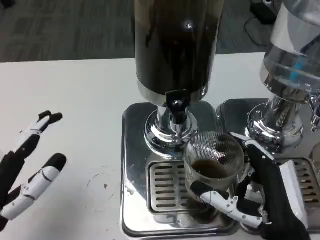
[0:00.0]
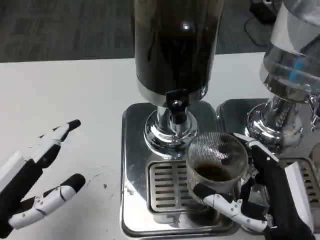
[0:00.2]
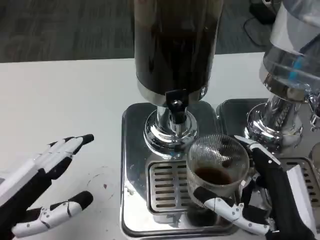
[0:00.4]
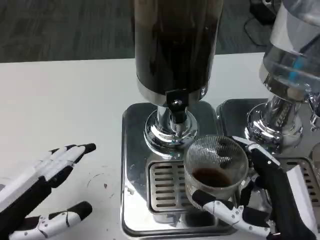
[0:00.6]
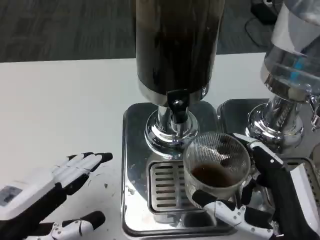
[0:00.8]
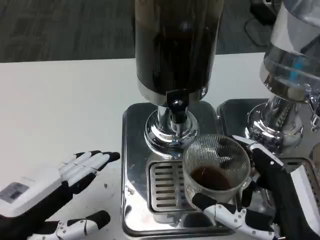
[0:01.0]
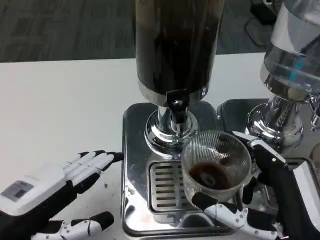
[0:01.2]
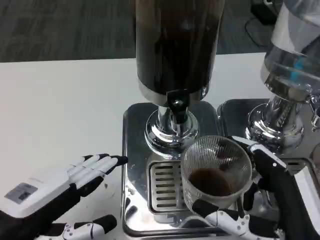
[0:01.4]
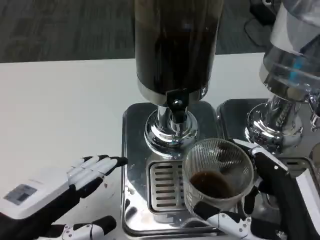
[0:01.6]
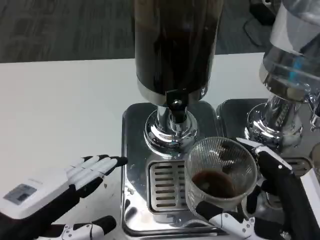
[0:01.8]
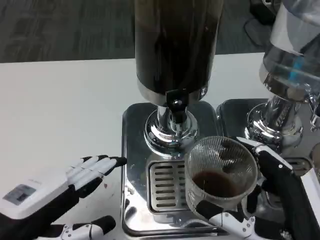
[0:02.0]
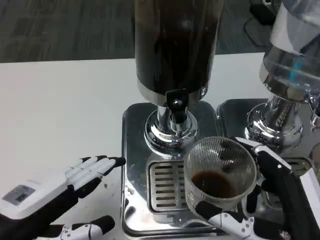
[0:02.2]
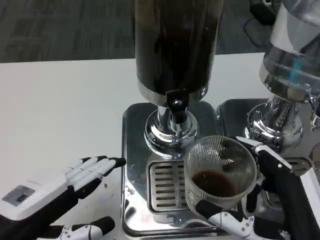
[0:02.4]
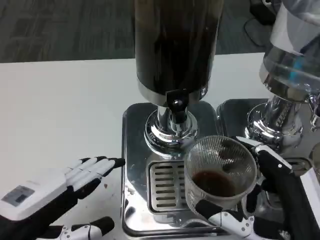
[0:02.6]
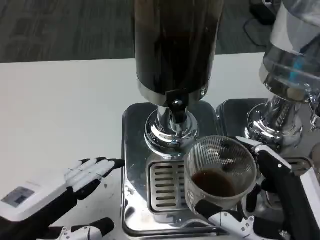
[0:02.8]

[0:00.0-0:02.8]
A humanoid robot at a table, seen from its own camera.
Task of the whole recording: Grasp the cup under the faucet to collect the drink, then remove the cup.
0:00.0 to 0:01.4: The right hand changes place by some 5 cm.
0:01.4 to 0:02.8: Both hands stay about where they are.

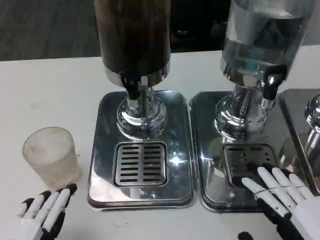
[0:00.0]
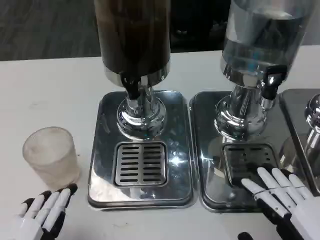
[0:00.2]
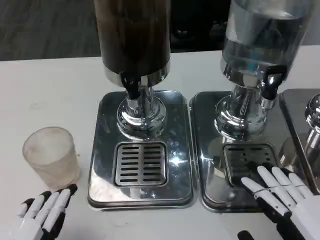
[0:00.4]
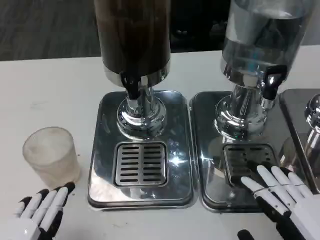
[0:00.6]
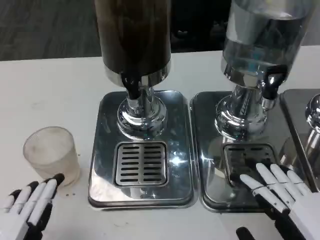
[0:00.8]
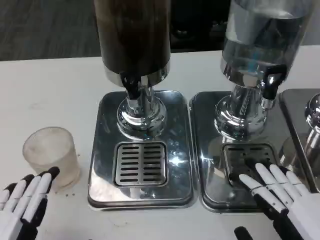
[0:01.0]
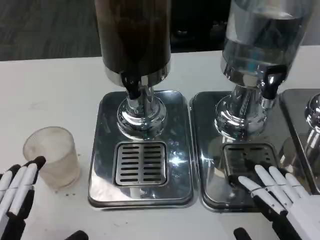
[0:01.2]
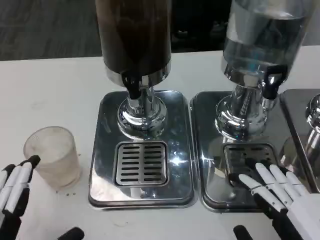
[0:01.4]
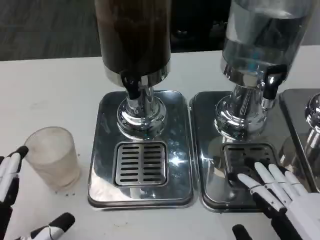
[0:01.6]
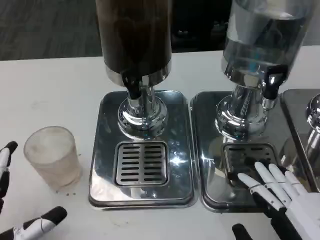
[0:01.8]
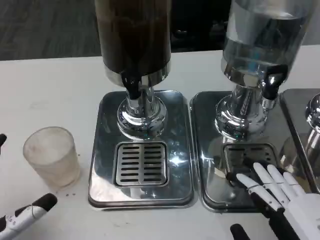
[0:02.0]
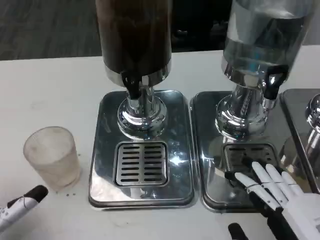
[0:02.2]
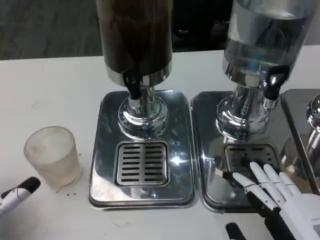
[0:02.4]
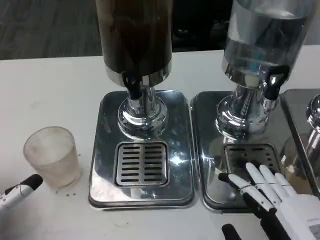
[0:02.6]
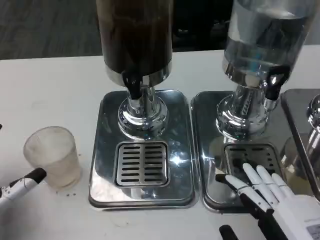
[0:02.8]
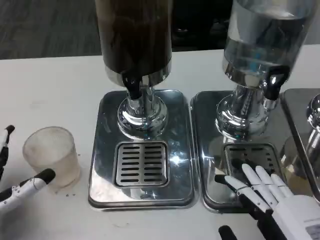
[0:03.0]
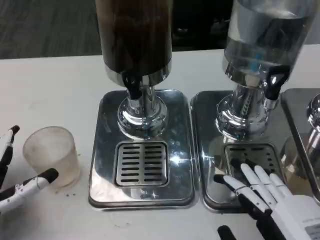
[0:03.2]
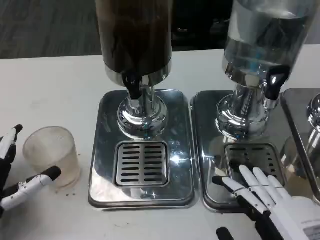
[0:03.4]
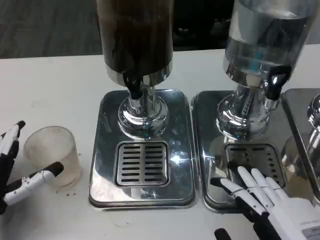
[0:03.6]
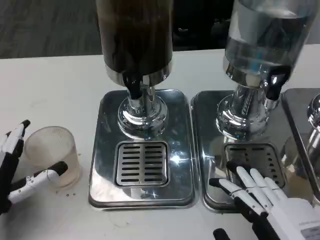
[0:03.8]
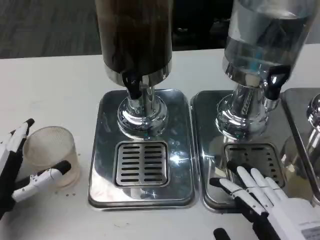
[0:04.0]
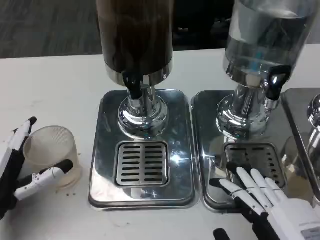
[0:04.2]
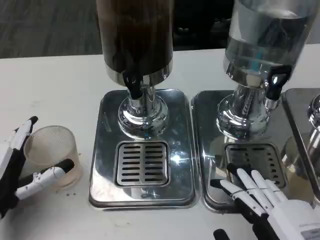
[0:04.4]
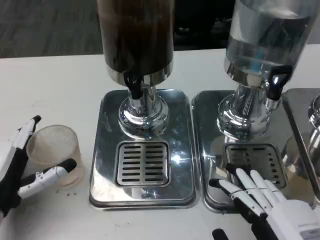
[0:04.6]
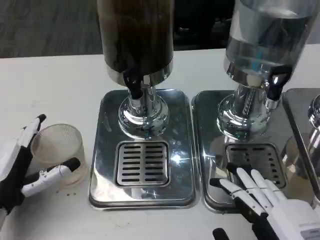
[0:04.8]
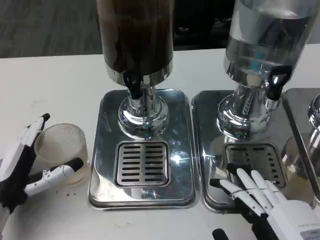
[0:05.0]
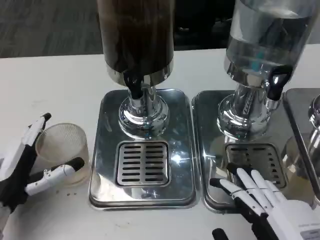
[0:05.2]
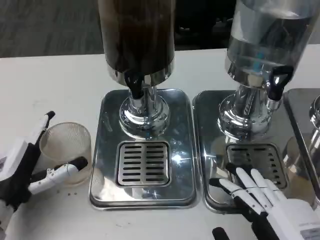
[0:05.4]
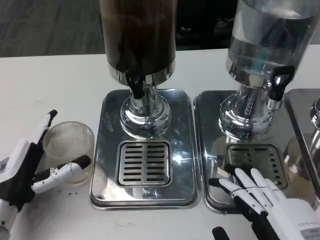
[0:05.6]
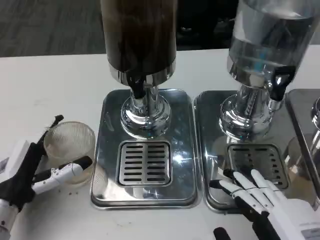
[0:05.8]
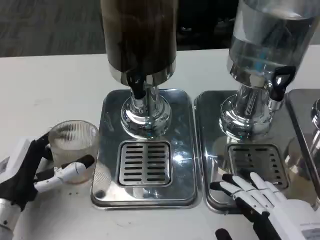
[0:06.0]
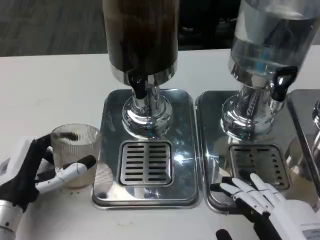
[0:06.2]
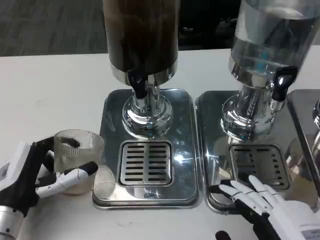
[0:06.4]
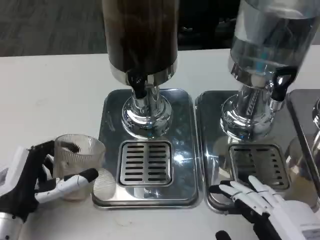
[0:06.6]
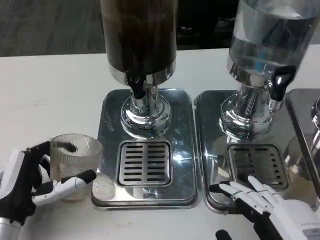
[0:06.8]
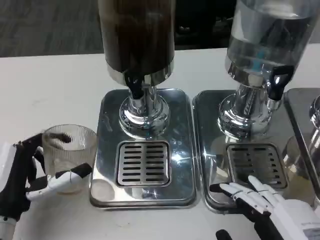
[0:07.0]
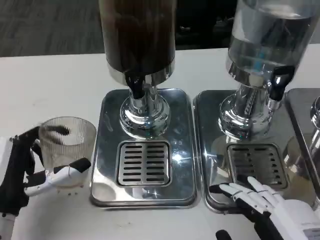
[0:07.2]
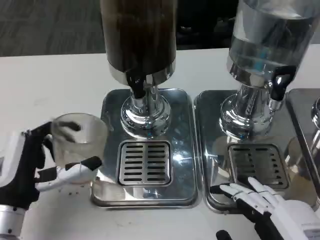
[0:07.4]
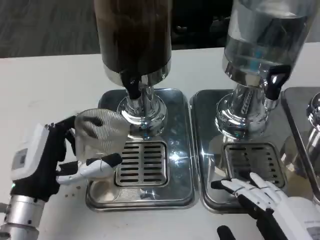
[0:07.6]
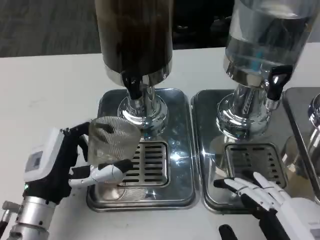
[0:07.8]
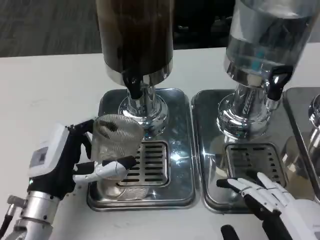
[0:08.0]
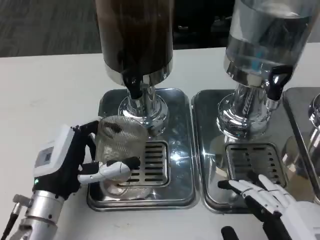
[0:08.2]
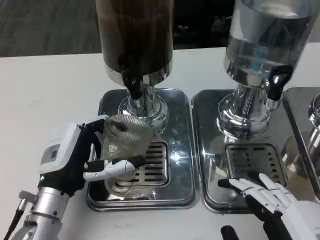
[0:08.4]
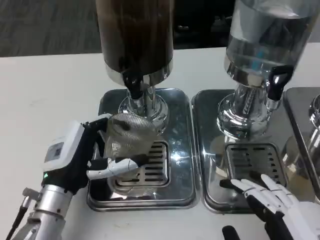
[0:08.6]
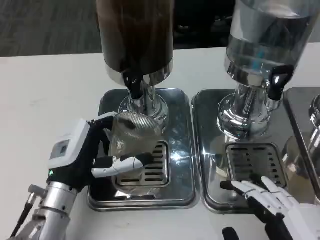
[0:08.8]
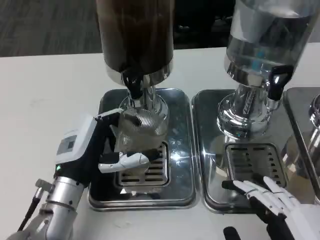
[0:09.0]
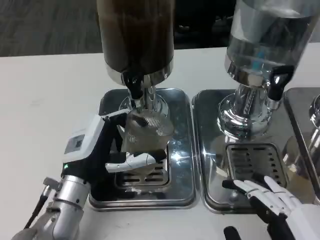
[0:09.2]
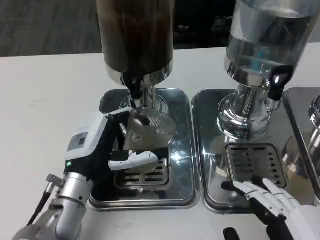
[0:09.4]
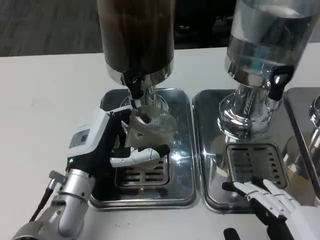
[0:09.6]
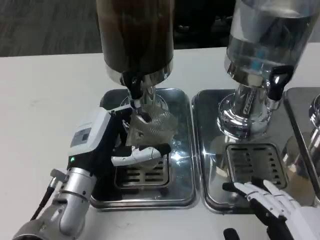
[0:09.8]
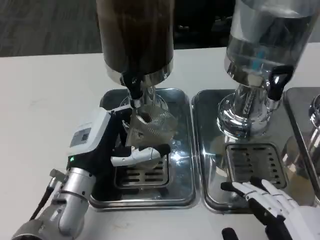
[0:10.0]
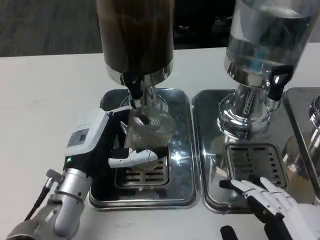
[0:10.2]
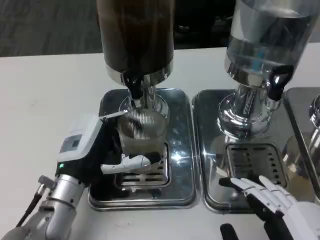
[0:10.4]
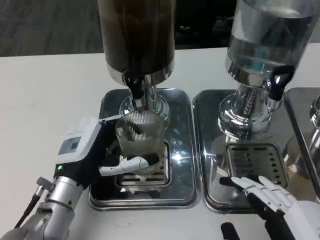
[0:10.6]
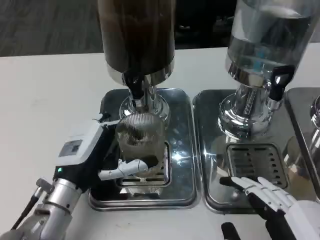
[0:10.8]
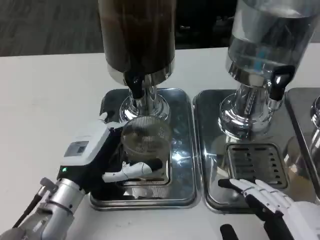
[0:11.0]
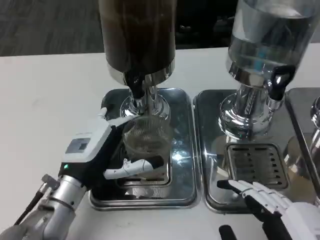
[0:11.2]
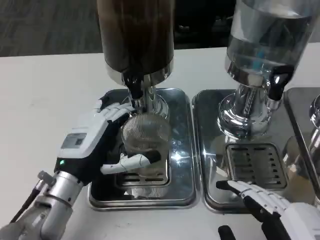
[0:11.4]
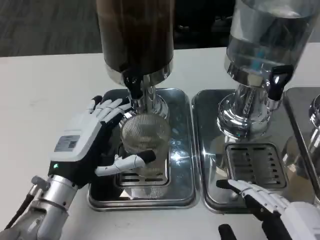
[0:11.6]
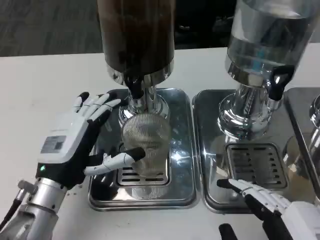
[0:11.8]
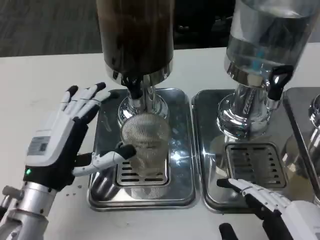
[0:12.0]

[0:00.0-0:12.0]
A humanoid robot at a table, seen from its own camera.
Task of the whole recording: Grasp the cup under the faucet to collect the drink, then remove the cup.
0:00.0 to 0:01.6: The hands make only small movements.
0:01.6 to 0:03.0: The left hand travels forward by about 10 cm.
0:03.0 to 0:04.4: There are only small adjustments of the hands.
0:07.6 to 0:09.0: The left hand shifts by roughly 5 cm.
0:09.0 to 0:12.0: There are only small adjustments of the hands.

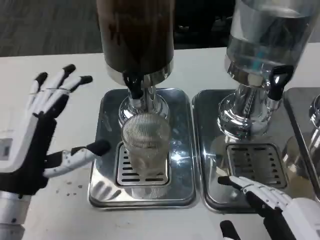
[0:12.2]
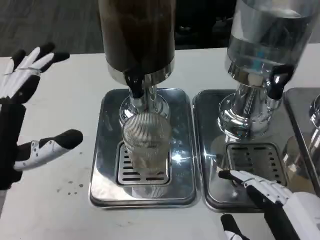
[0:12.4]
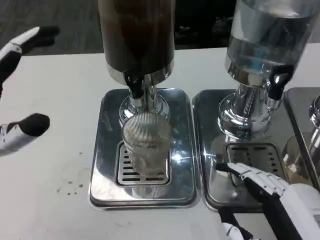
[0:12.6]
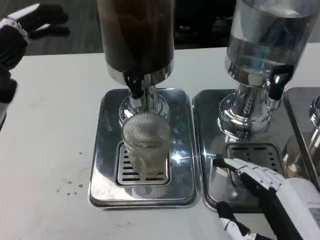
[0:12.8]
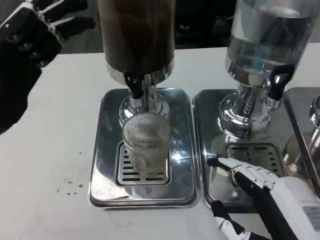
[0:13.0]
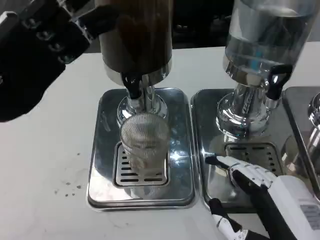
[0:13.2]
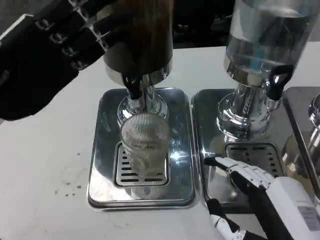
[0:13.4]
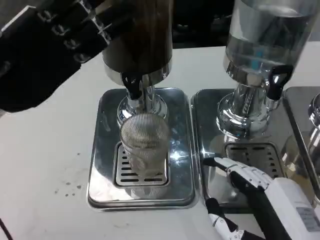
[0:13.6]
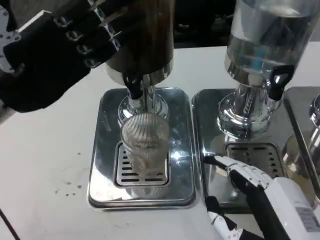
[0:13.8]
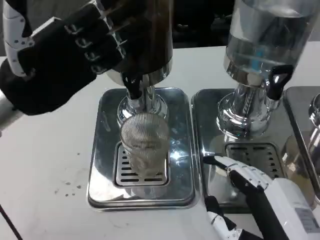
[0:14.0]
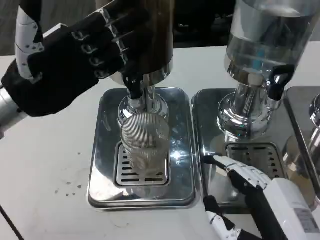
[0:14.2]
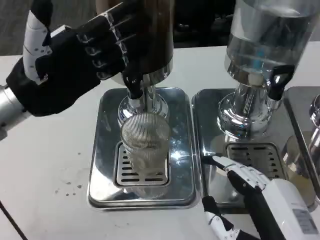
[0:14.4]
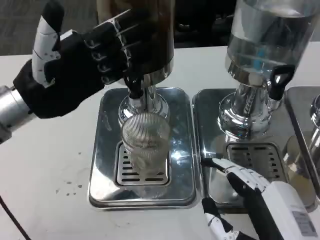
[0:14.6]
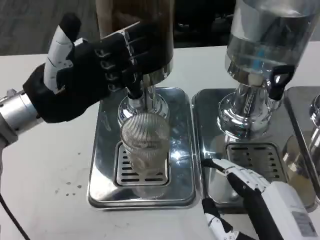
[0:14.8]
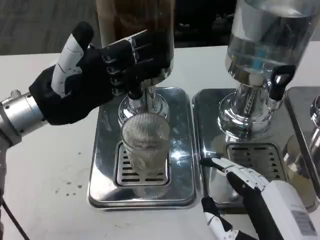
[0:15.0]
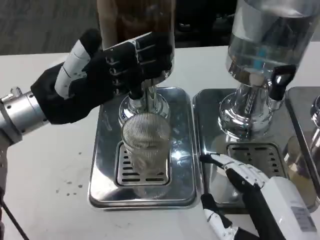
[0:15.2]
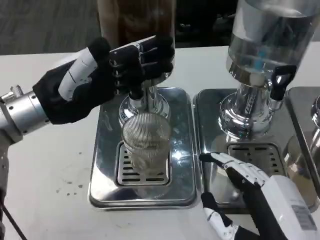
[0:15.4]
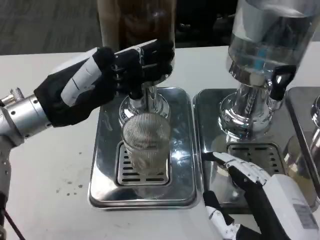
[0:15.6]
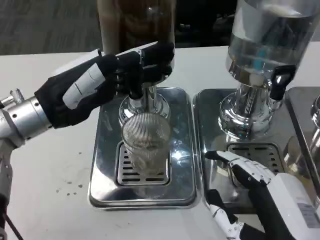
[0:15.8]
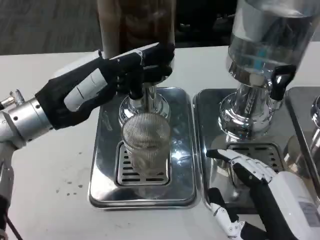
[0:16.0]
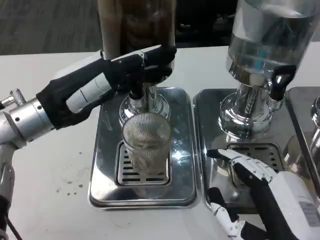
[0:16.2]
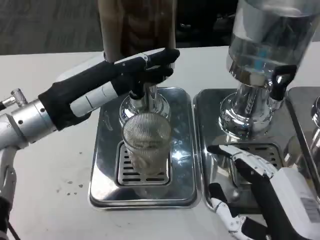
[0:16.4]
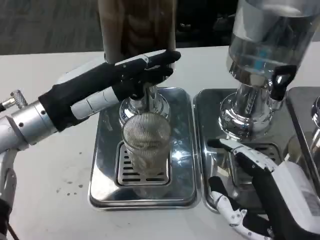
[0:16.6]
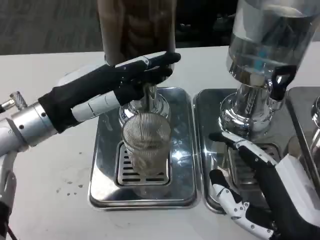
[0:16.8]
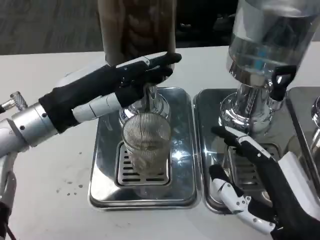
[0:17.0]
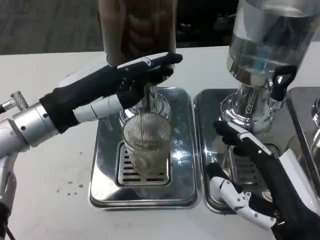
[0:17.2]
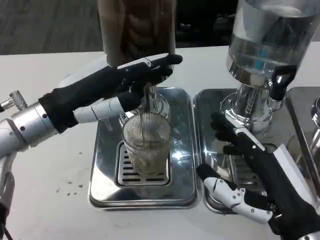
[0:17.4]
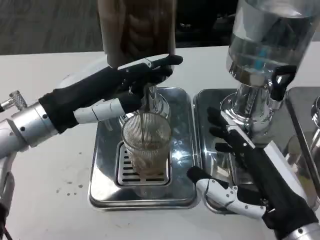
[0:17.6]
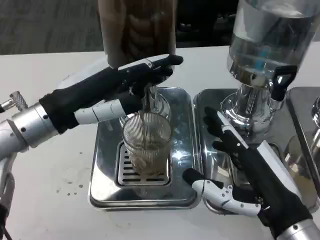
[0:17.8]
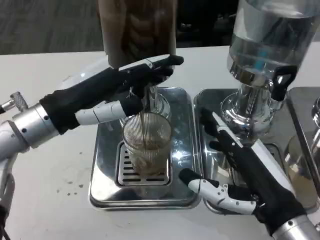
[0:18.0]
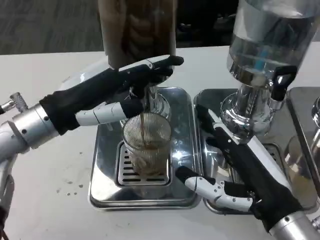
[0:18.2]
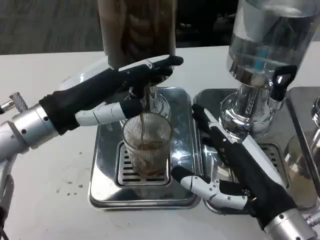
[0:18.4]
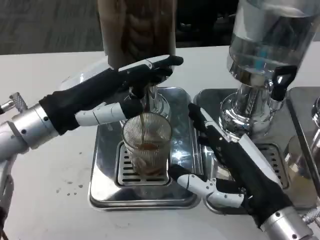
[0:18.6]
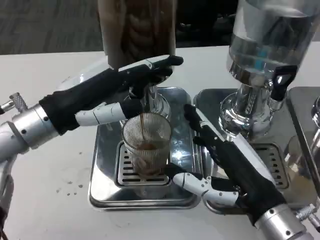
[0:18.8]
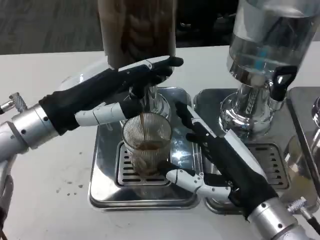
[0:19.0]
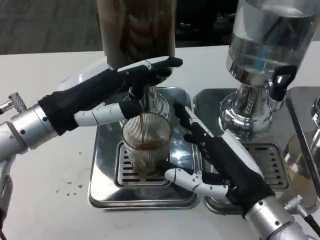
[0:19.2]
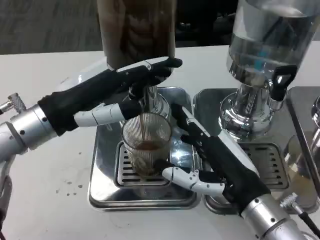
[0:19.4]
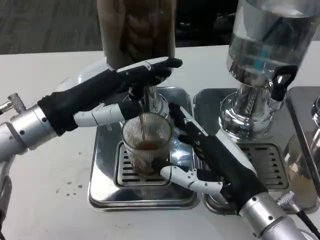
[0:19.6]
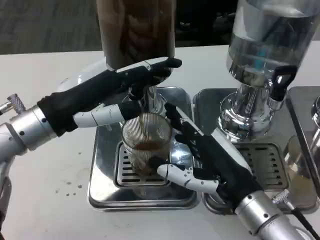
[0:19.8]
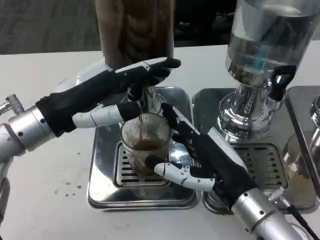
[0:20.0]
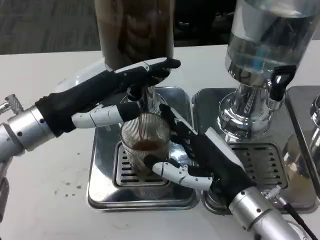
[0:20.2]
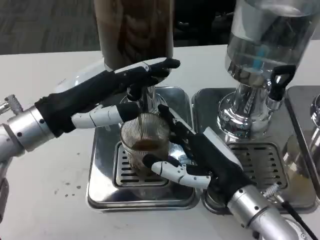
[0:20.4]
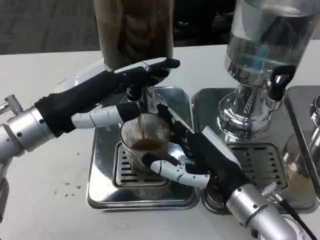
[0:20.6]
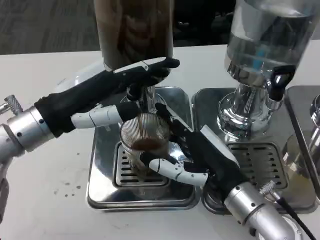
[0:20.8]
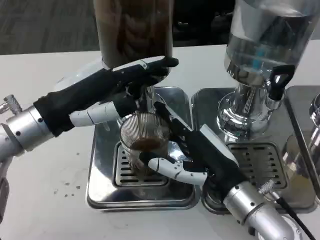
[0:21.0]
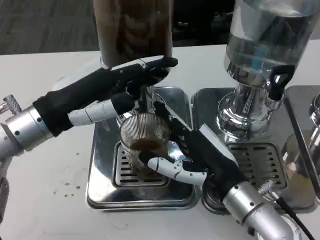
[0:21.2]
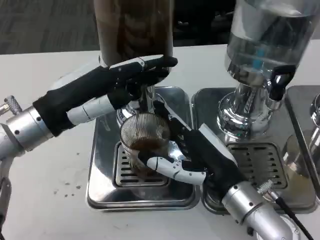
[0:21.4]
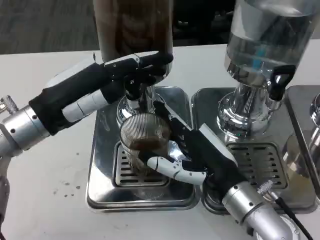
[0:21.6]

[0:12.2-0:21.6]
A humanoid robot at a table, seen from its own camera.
Task of the whole recording: Grasp the cup under the faucet to collect the drink, then remove the cup.
0:12.2 to 0:13.8: The left hand moves upward and forward, approximately 15 cm.
0:17.0 to 0:18.4: The hands move only a little.
0:18.4 to 0:20.0: The right hand changes place by about 5 cm.
0:20.0 to 0:21.6: The hands stay close to where they were, moving slightly.
